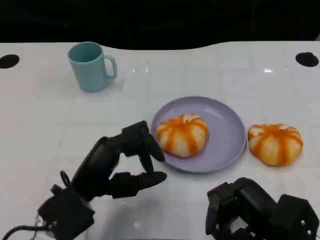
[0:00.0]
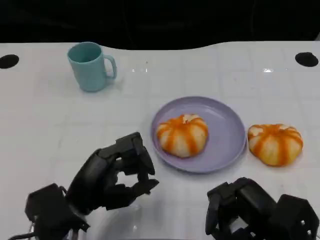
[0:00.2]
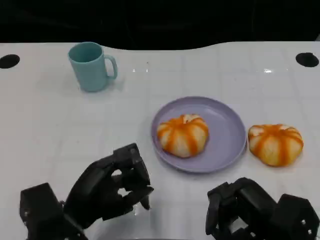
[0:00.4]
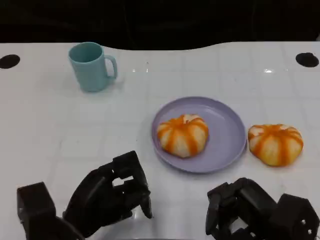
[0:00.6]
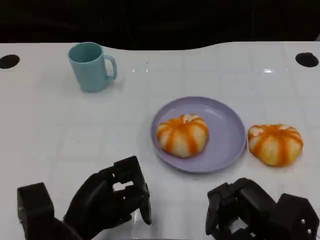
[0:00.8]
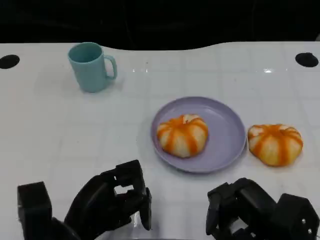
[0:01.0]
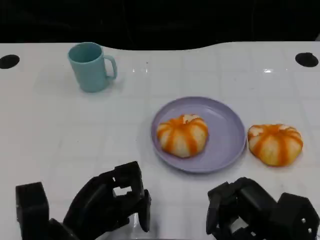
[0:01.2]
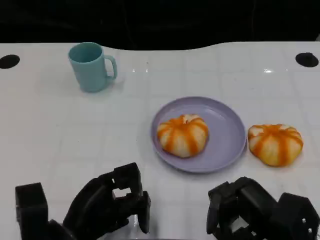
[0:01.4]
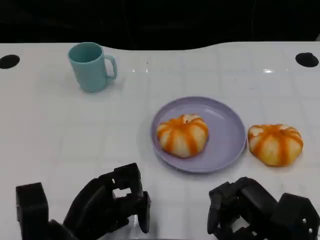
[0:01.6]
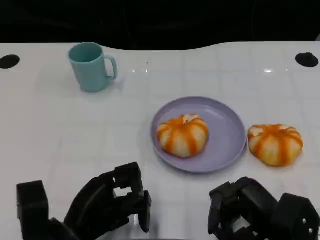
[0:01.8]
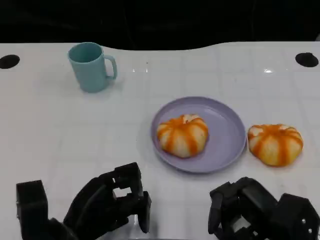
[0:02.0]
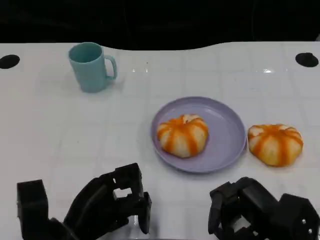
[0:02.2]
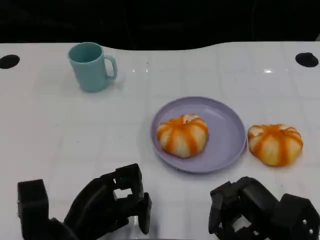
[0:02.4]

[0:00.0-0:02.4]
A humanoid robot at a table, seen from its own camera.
Task of the whole recording: Grasp the bread from the table and place it into the plate.
0:01.2 to 0:02.4: Both hands stay about where they are.

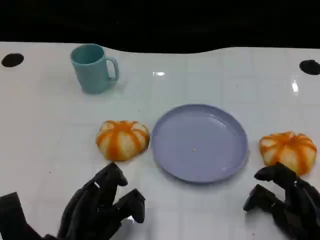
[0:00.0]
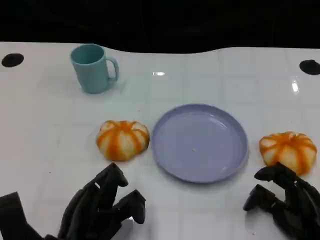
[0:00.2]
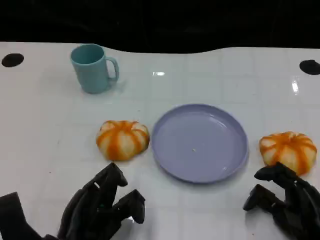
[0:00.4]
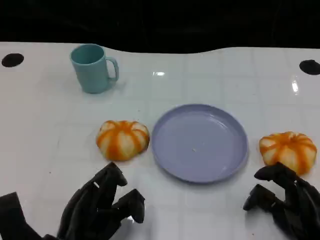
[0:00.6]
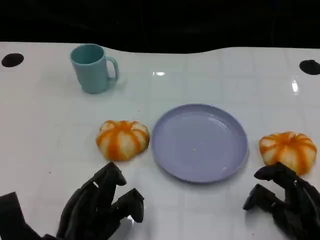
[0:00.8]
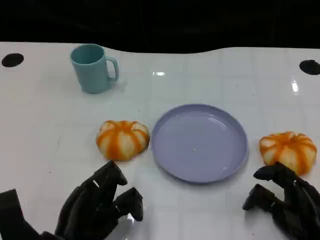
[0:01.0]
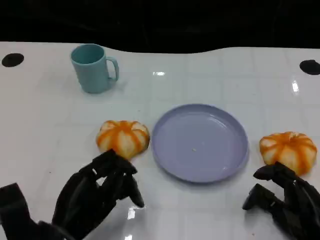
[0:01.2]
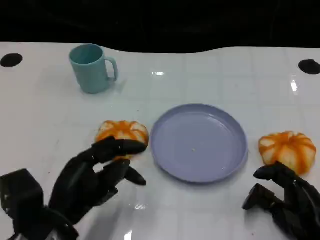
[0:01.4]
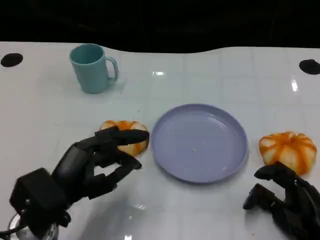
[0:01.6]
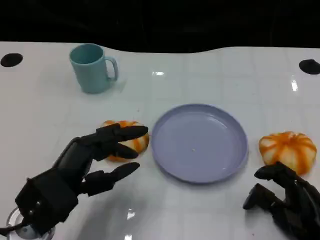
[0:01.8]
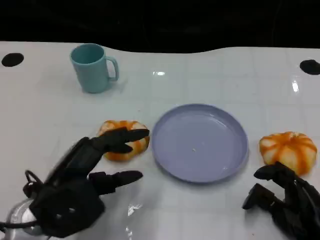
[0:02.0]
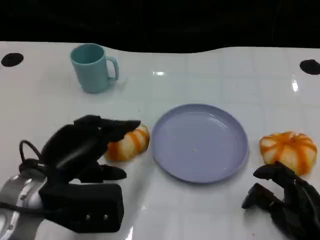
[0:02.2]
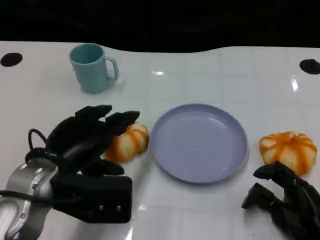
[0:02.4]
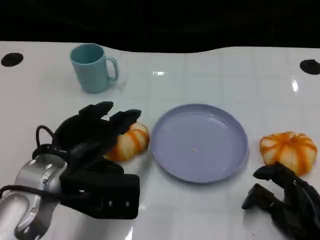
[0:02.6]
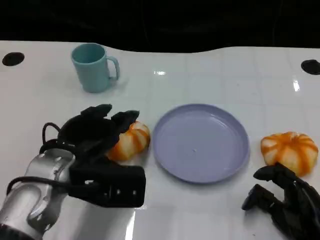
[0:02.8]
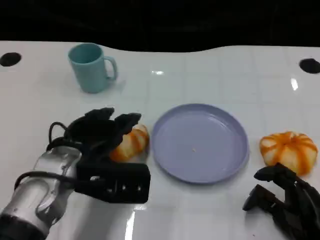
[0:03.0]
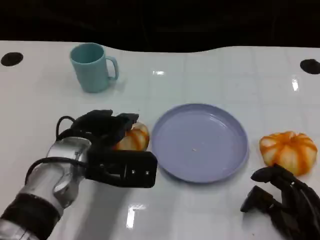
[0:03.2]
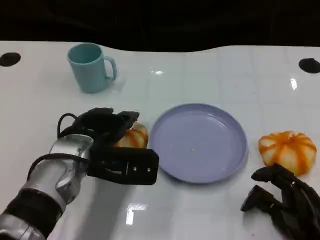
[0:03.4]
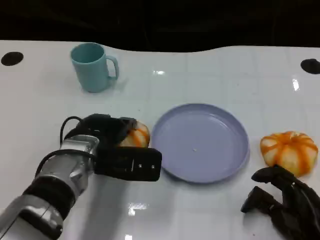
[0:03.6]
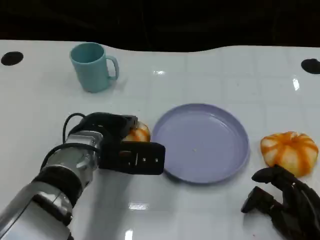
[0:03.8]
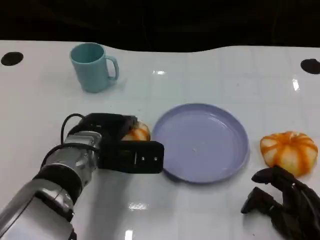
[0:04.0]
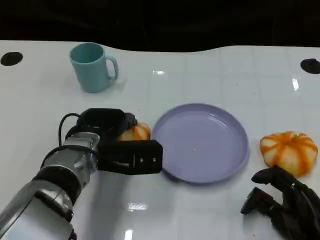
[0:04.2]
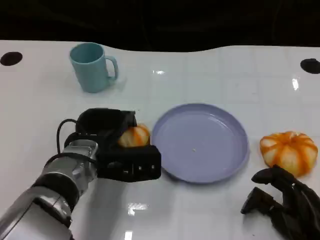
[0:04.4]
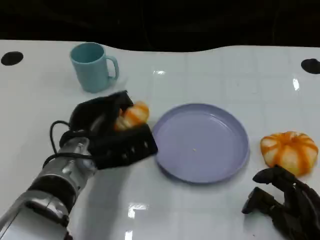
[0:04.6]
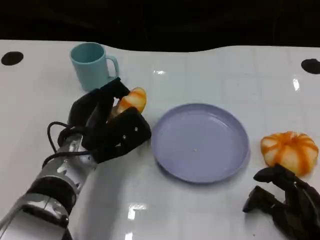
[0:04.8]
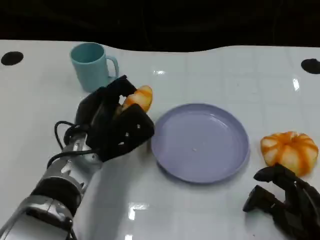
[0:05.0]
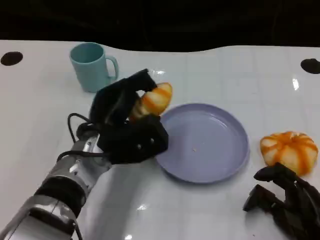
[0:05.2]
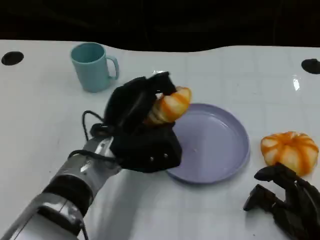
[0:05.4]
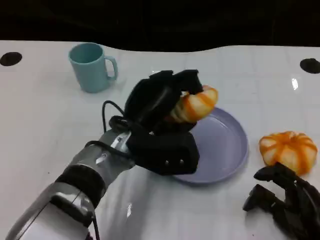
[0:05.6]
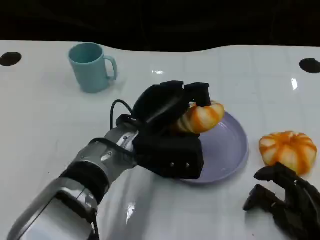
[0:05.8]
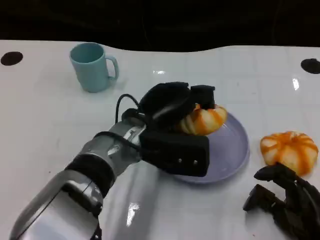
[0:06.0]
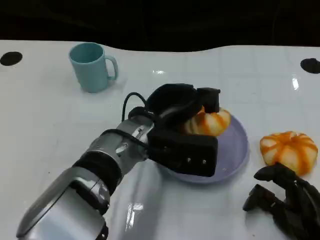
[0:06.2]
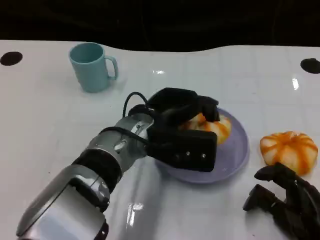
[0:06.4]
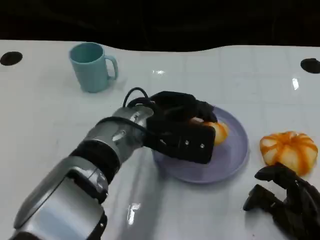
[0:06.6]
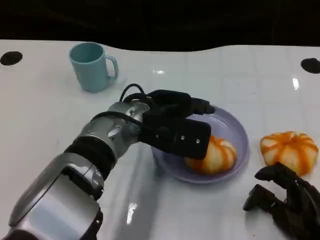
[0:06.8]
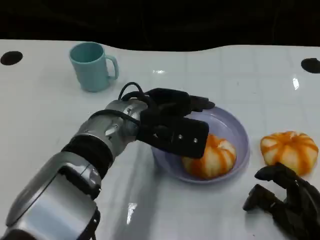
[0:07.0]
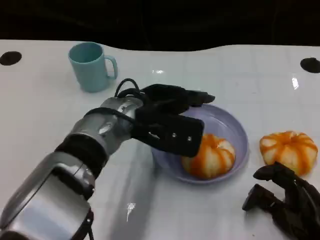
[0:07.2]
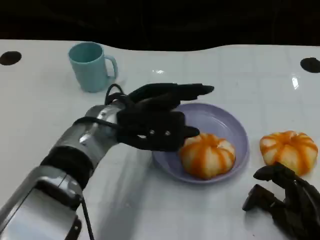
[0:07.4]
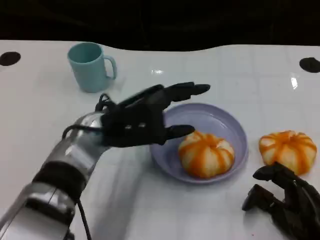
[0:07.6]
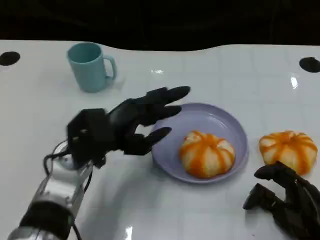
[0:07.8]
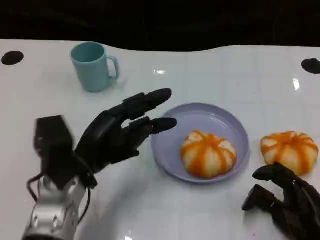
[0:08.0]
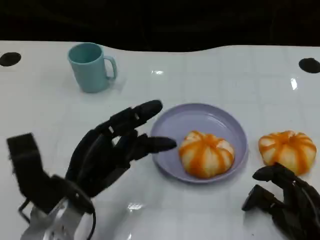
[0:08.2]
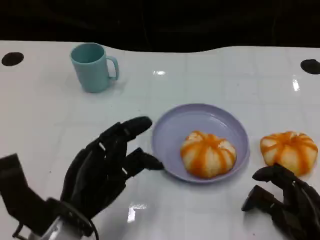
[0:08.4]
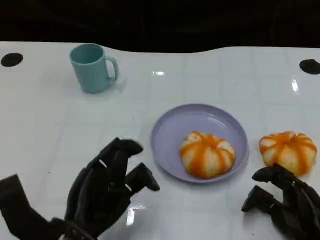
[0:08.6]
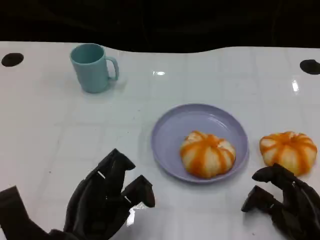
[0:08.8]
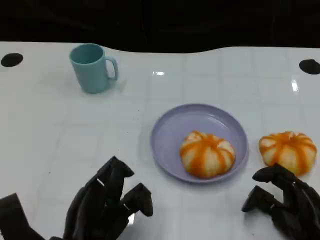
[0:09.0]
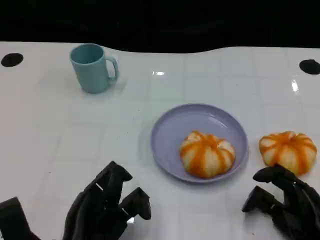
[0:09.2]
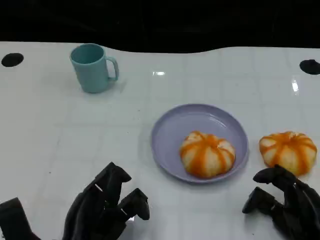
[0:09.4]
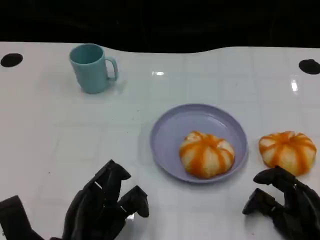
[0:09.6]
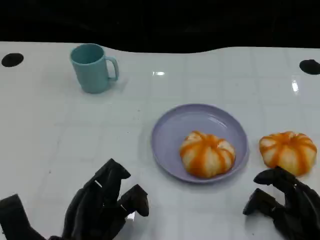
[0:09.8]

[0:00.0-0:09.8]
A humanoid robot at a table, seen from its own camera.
Task of the whole recording: Grasp the bread from the table and place it into the plate.
0:00.0 to 0:01.4: The left hand changes place by about 5 cm.
0:01.4 to 0:02.8: The left hand is displaced forward by some 5 cm.
0:02.8 to 0:04.2: The left hand moves approximately 5 cm.
0:04.2 to 0:05.6: The left hand heads to the right, covering roughly 5 cm.
0:07.0 to 0:08.4: The left hand shifts about 20 cm backward, to the left and downward.
0:08.4 to 0:09.8: There are only small adjustments of the hands.

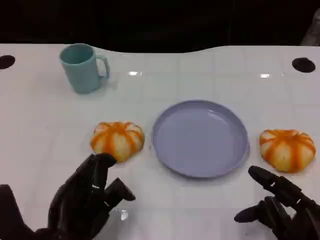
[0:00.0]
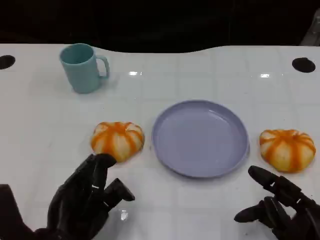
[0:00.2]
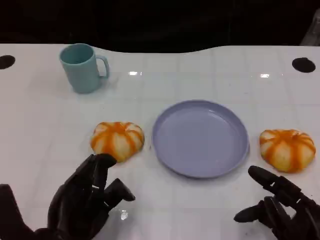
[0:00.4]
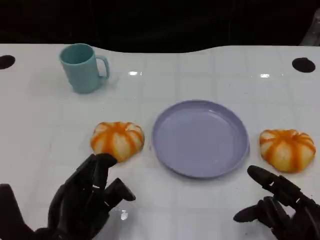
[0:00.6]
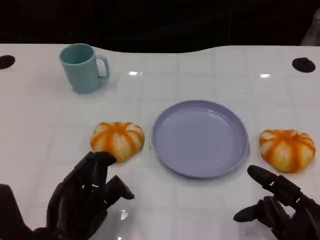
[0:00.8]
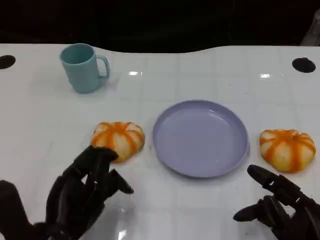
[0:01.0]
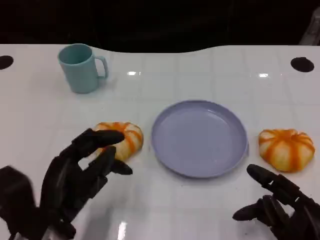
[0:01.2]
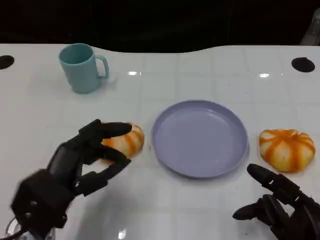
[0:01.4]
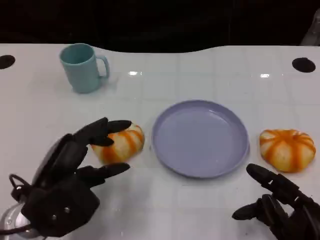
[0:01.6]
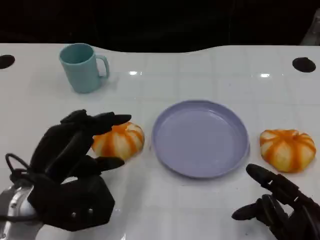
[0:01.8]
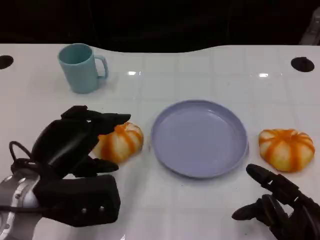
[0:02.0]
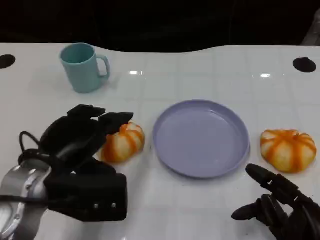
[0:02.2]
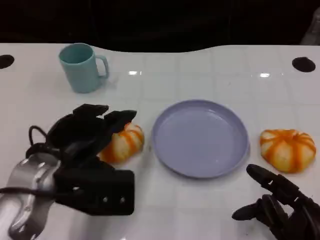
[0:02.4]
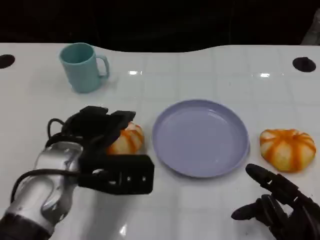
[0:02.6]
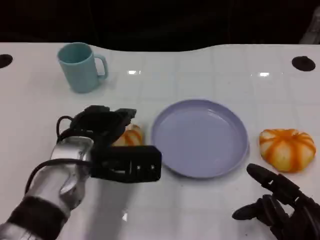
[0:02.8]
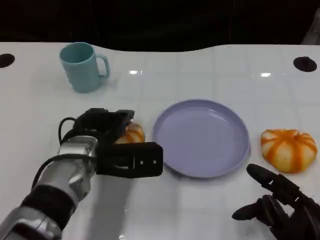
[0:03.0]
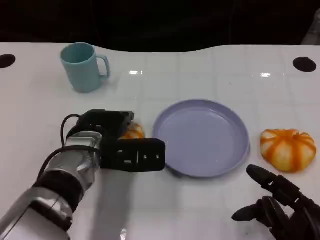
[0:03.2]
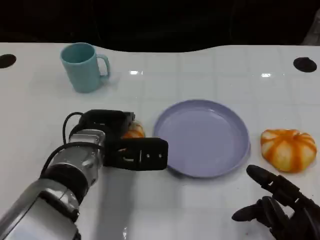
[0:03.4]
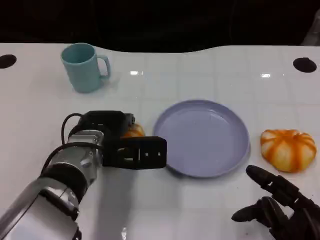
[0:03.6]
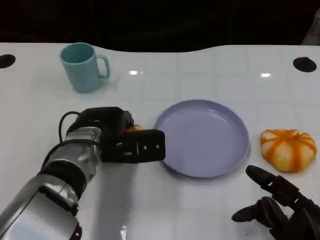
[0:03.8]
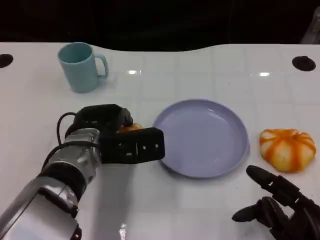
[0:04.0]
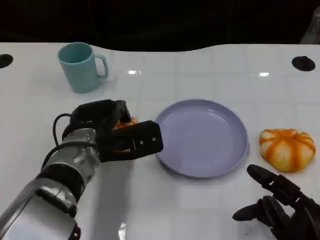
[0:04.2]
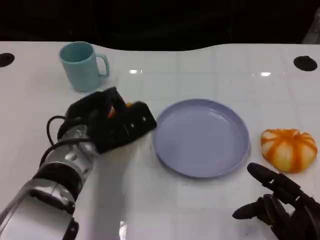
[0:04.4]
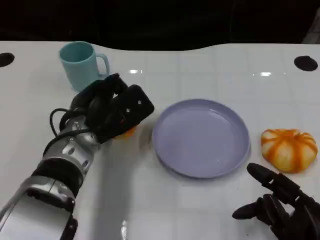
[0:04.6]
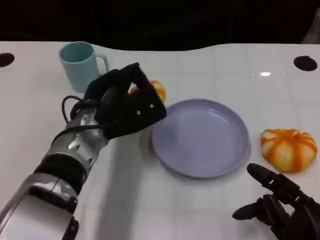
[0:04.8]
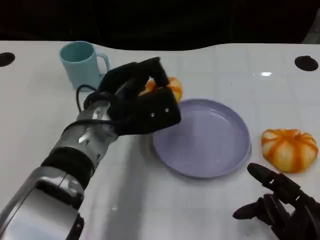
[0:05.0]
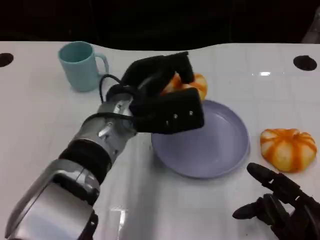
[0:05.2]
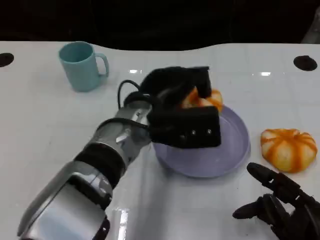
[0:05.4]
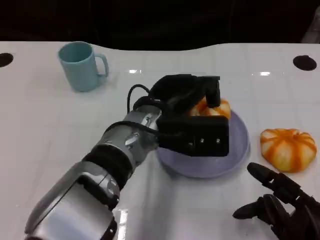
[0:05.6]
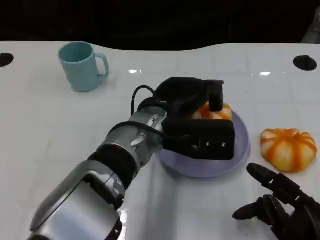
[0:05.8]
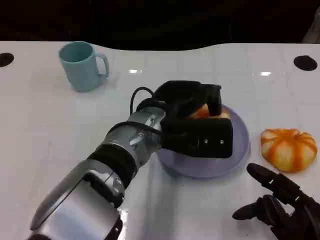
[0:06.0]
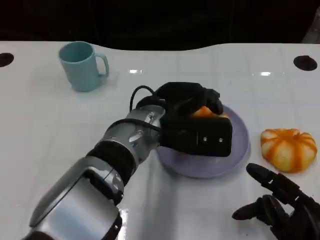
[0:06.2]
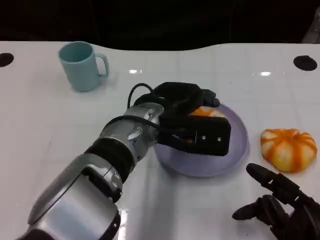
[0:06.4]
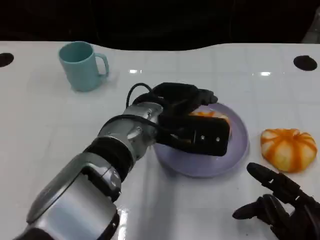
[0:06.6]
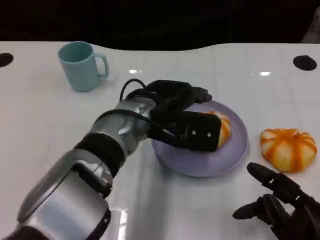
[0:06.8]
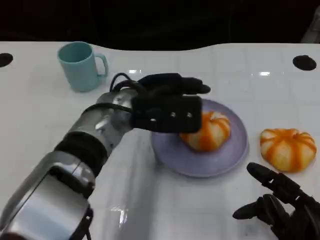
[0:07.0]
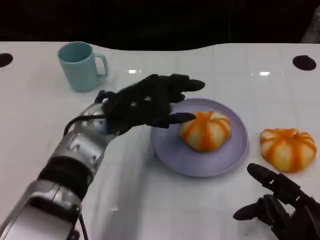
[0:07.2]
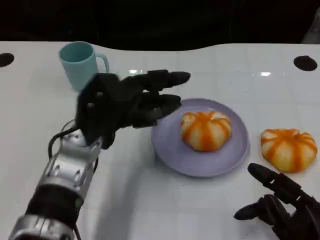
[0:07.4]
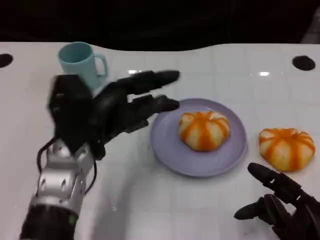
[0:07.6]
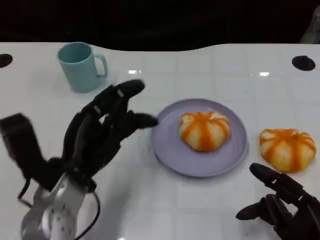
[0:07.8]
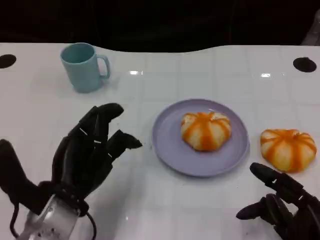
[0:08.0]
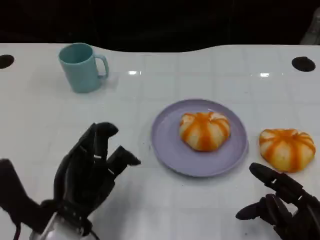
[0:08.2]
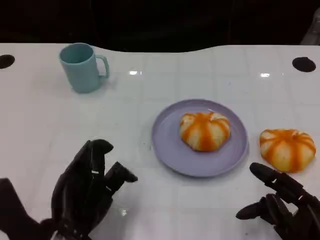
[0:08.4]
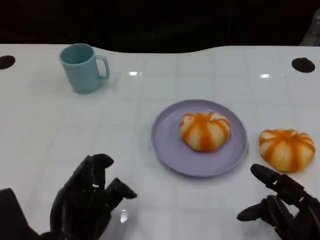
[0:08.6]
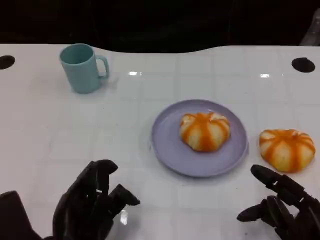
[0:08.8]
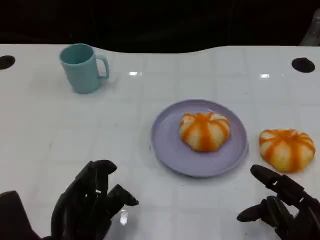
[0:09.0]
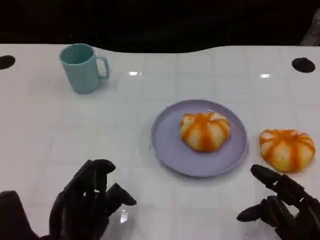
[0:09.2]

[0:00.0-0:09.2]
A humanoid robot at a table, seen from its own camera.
Task of the whole recording: Grasp the bread from the table and place it into the plate.
0:00.0 to 0:01.6: The left hand moves approximately 5 cm.
0:01.6 to 0:03.0: The left hand shifts roughly 10 cm forward and to the right.
0:04.6 to 0:06.2: The left hand travels to the right by about 10 cm.
0:06.2 to 0:07.6: The left hand goes about 10 cm to the left.
0:07.6 to 0:09.2: The left hand is displaced backward by roughly 10 cm.

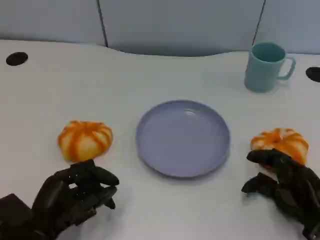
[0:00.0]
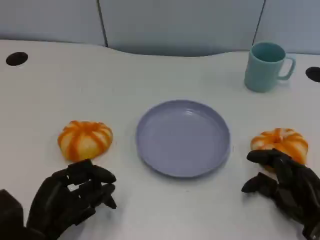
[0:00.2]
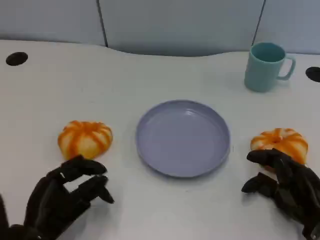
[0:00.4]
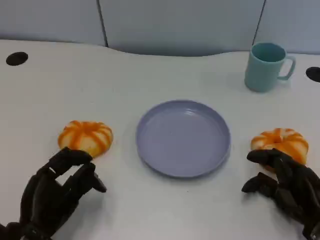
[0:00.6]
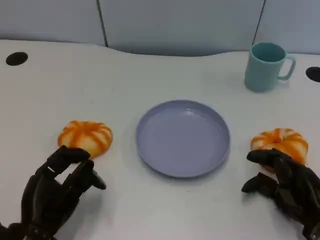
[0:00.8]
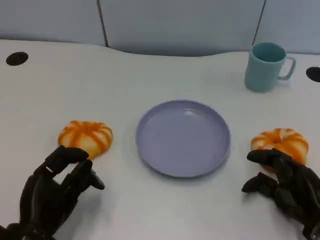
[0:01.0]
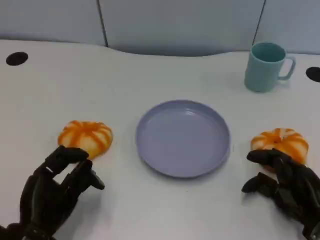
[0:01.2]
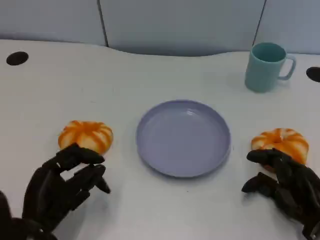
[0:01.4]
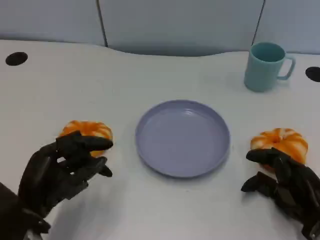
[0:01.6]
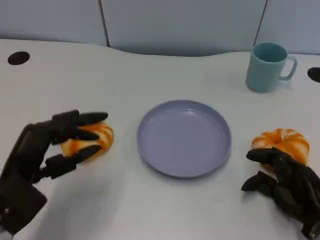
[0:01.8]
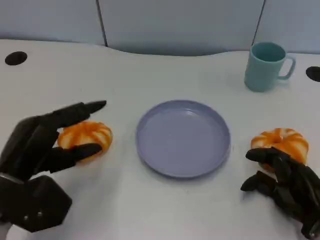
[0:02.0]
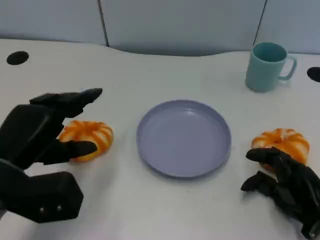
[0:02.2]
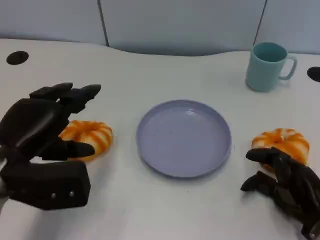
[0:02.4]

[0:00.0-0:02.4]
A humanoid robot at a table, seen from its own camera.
Task of the whole recording: Grasp the bread from the table and place it into the plate.
0:01.2 to 0:02.4: The left hand travels upward and forward by approximately 15 cm.
